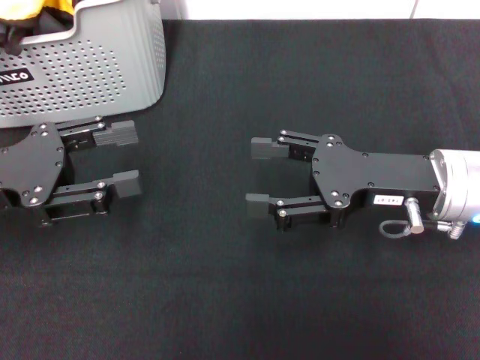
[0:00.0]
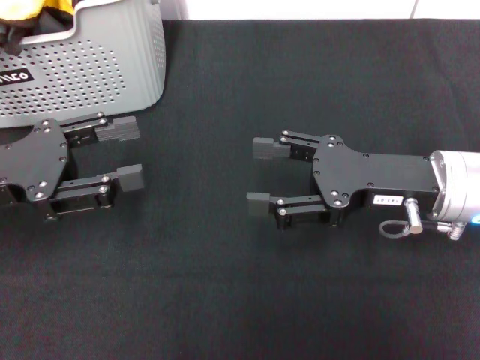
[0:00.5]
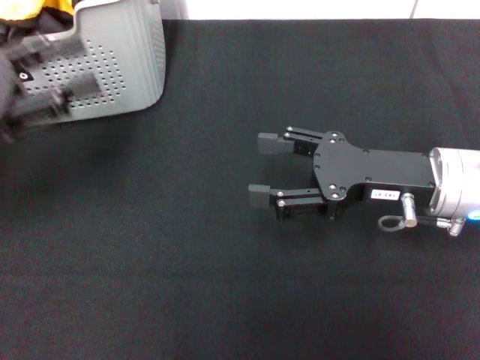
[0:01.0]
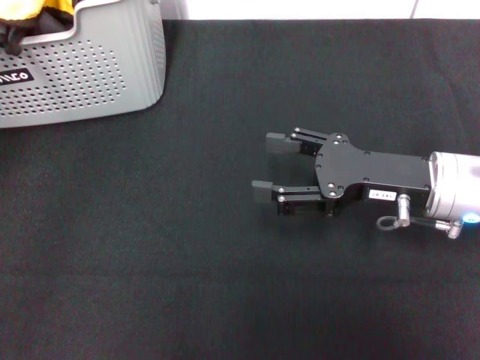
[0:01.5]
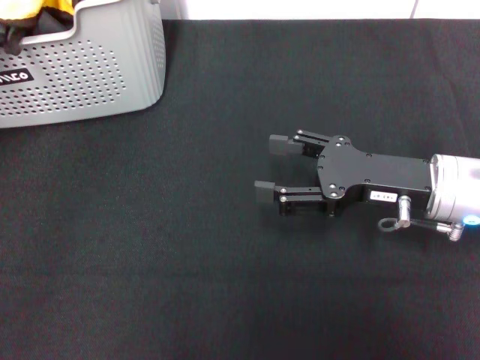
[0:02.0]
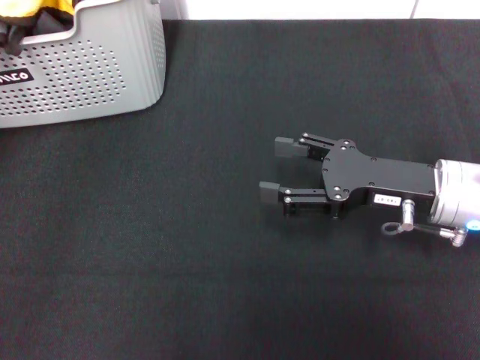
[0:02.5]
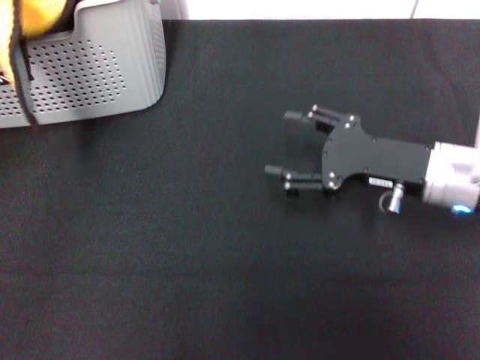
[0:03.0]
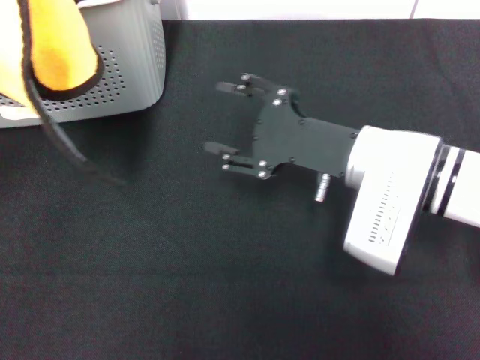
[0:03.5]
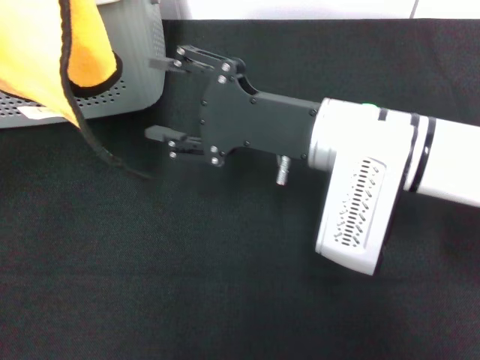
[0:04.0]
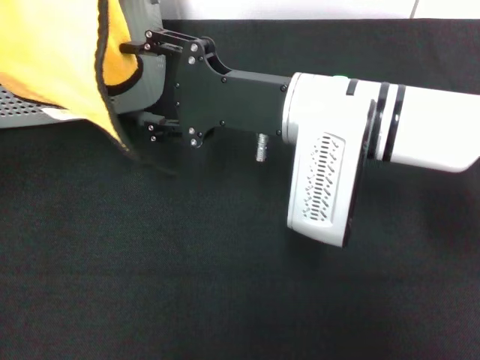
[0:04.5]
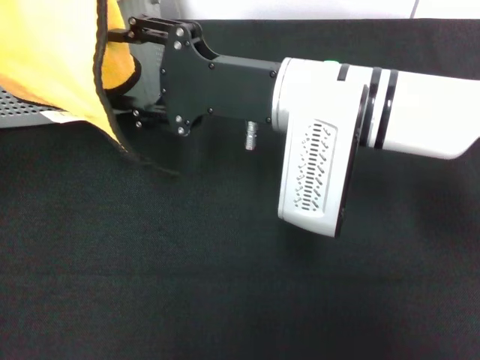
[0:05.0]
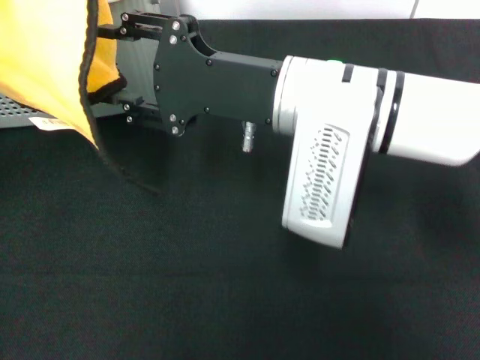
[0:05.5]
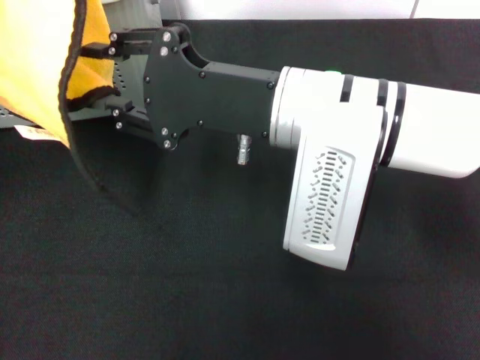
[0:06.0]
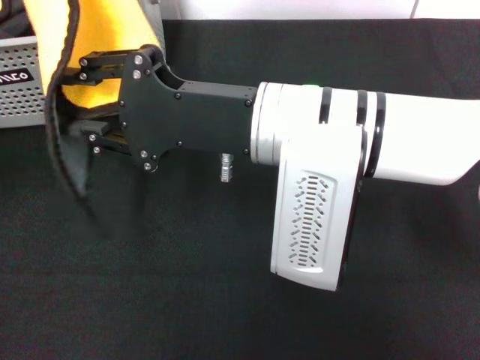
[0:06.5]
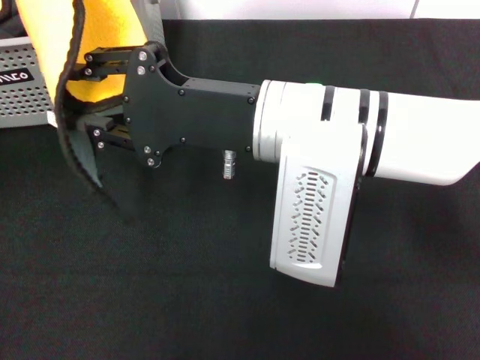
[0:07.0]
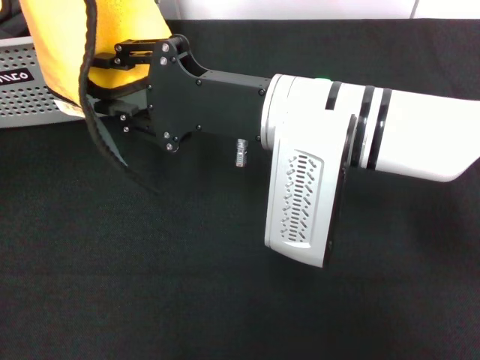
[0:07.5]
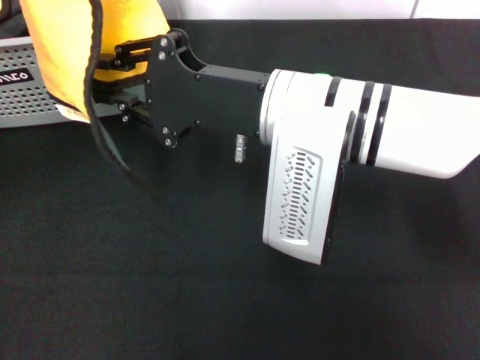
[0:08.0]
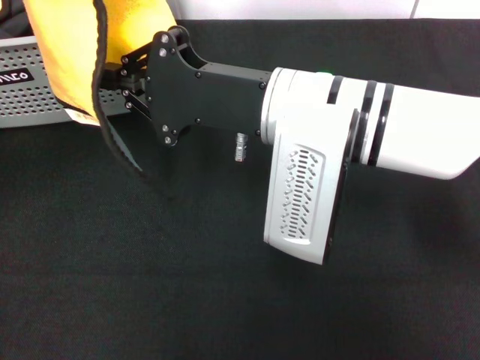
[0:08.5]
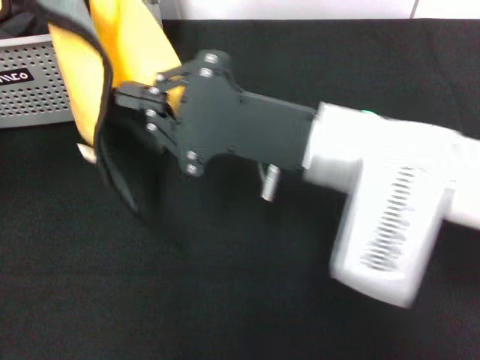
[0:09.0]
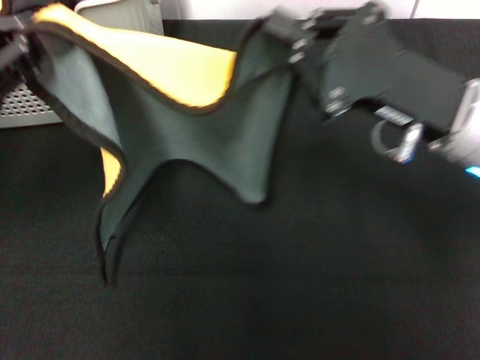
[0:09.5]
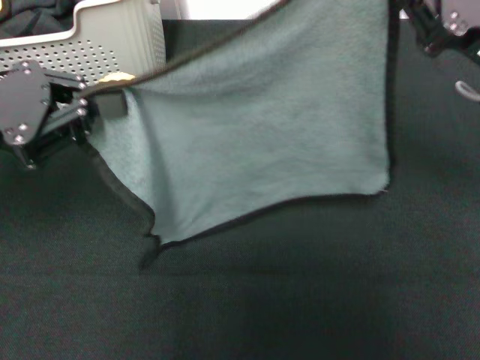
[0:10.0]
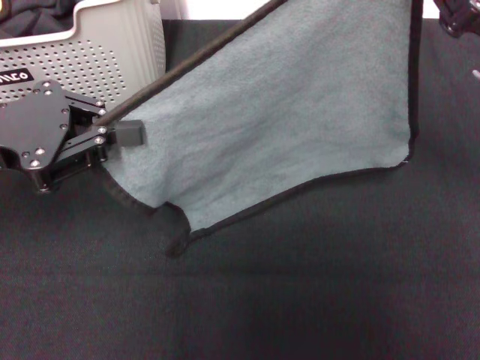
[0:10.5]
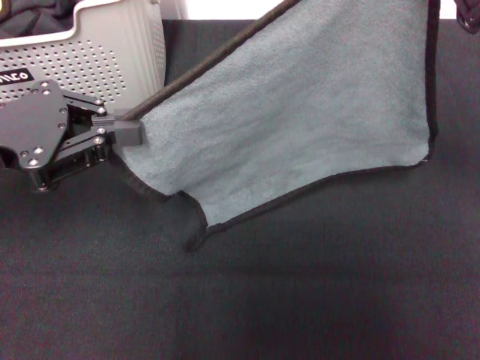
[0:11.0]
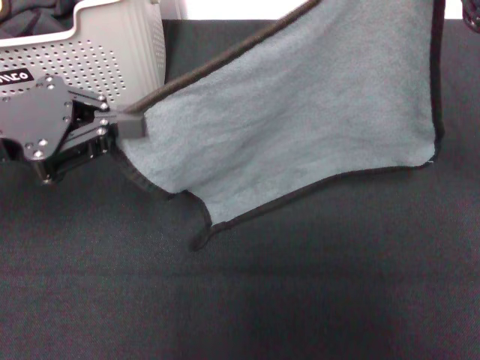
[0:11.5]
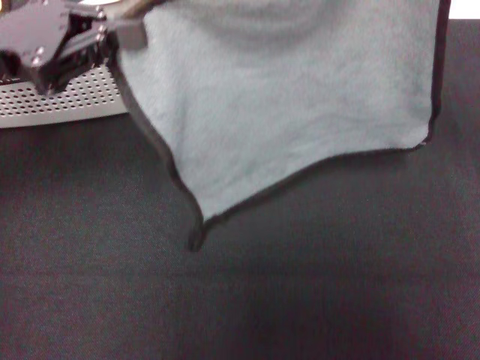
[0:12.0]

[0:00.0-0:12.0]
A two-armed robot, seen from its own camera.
Task of the whole recording: pick up the towel from the storage box and lay it flat on the black tablecloth.
Step, 0:00.0 to 0:02.5: Pick up a towel with the left gripper.
Step, 0:03.0 to 0:08.0: Spread the towel flat with the left gripper.
0:00.0 to 0:02.0: The left gripper shifts some 10 cm upward and to the left.
0:02.0 to 0:04.0: The left gripper moves roughly 5 cm, and closes its fingers. The right gripper is displaced to the left and upward by approximately 10 cm.
0:08.0 to 0:10.0: The right gripper is displaced to the right by some 20 cm, and closes.
0:10.0 to 0:12.0: The left gripper shifts by about 5 cm.

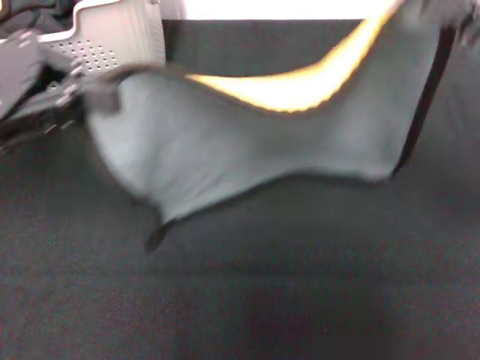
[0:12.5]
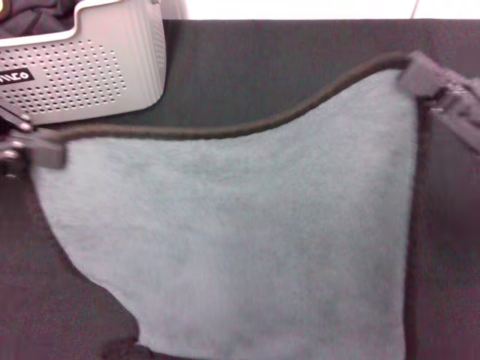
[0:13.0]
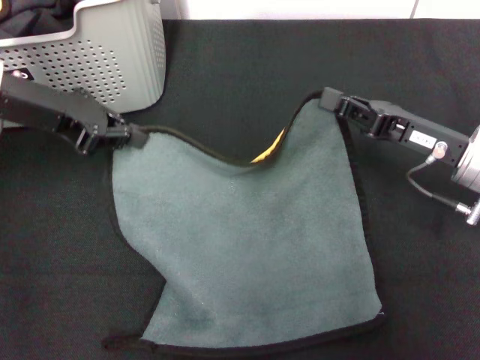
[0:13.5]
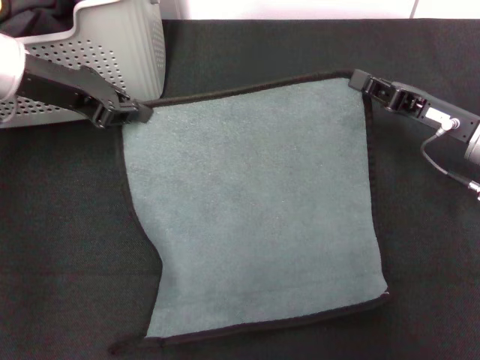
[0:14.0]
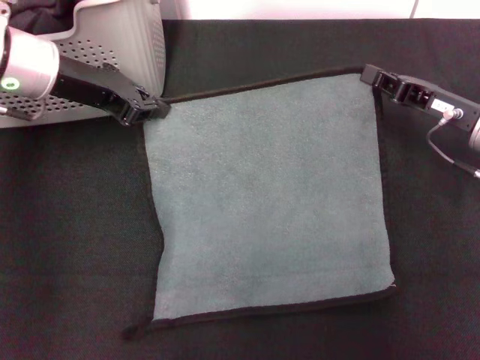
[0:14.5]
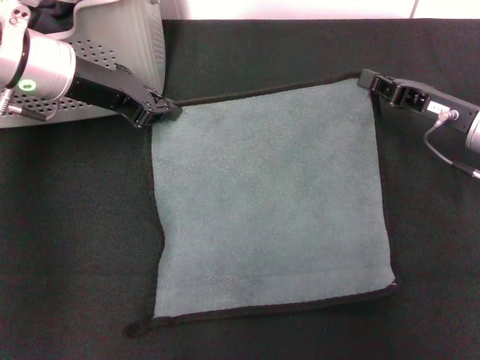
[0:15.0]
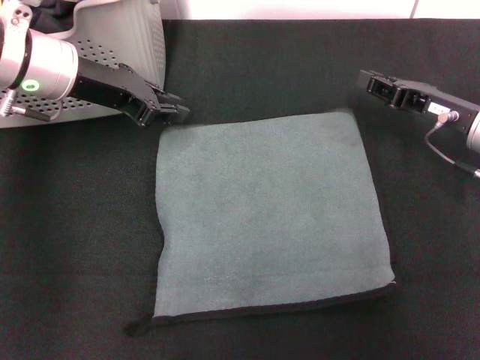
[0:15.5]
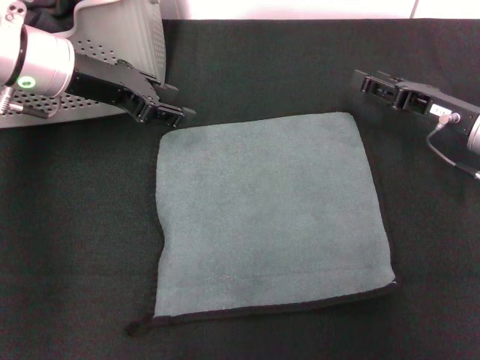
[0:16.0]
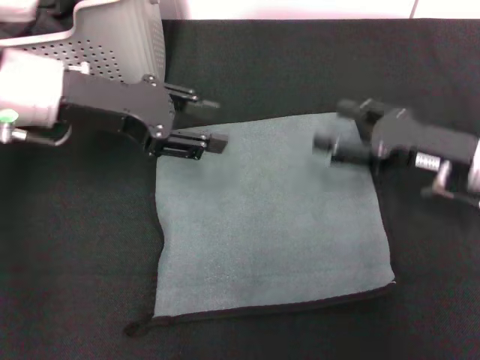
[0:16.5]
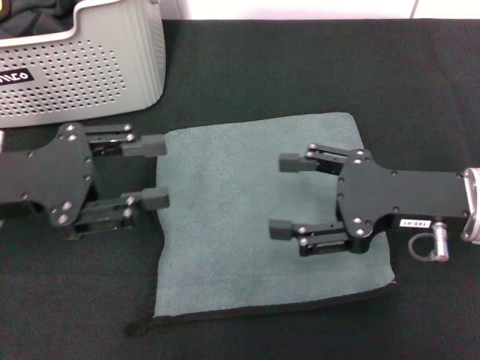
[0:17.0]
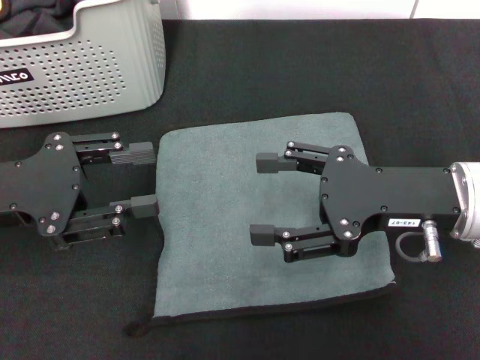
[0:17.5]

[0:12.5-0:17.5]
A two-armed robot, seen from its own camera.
Task of the whole recording: pick up the towel from the storage box and lay it flat on the black tablecloth.
Step, 0:12.5 to 0:15.5: Spread the towel flat with the right gripper.
0:12.5 to 0:15.0: The left gripper heads forward, downward and to the right, covering approximately 15 cm. Meanwhile the right gripper goes about 10 cm downward and forward.
0:15.0 to 0:17.5: The left gripper heads backward and to the left, covering some 15 cm, and opens. Meanwhile the right gripper moves backward, upward and to the left, some 15 cm, and opens up.
